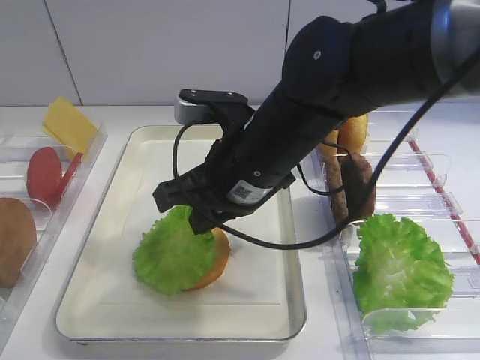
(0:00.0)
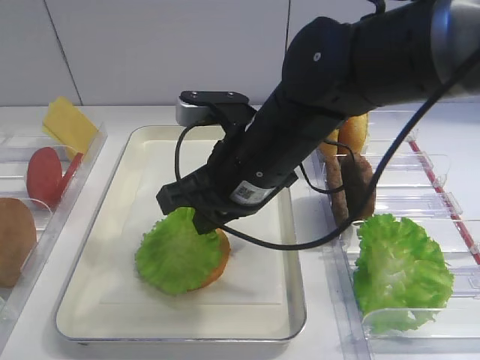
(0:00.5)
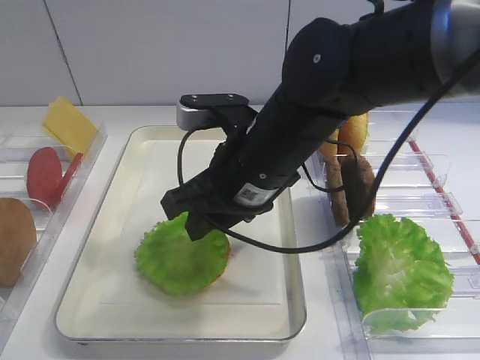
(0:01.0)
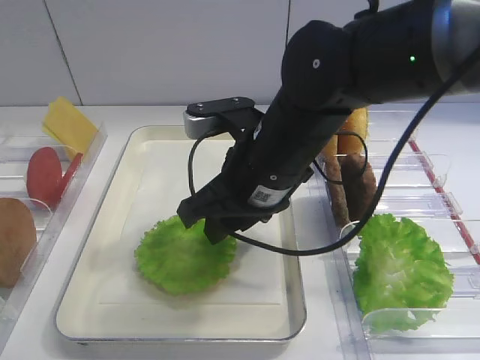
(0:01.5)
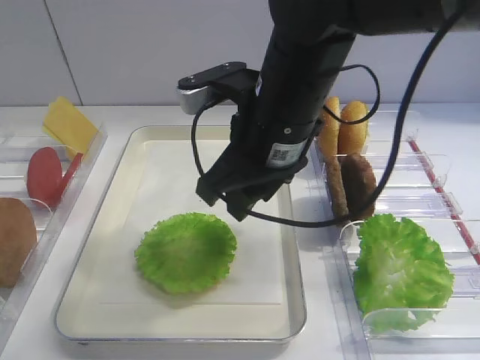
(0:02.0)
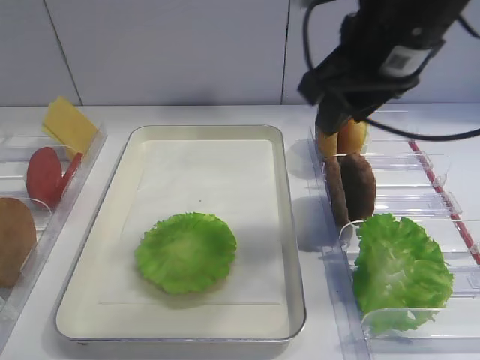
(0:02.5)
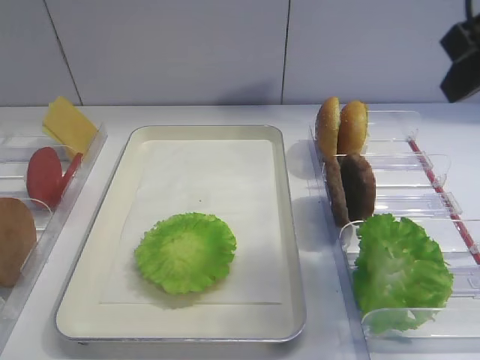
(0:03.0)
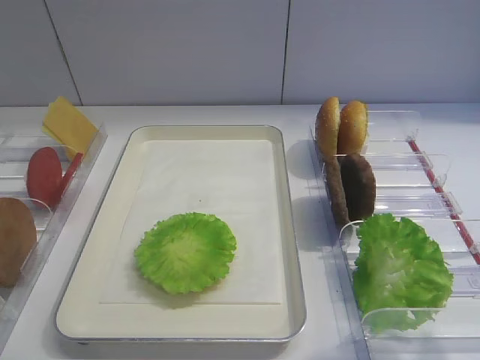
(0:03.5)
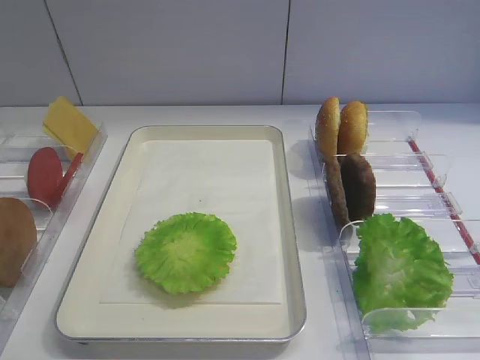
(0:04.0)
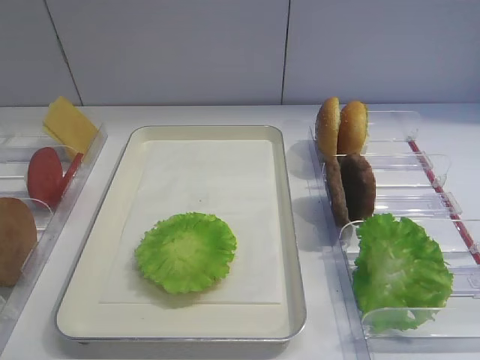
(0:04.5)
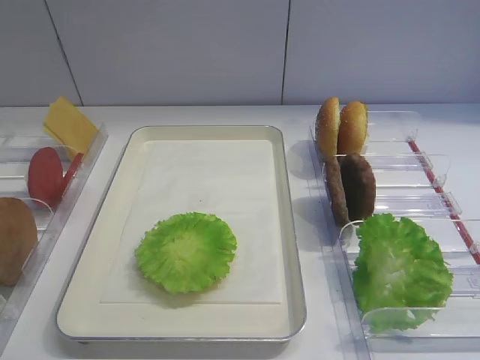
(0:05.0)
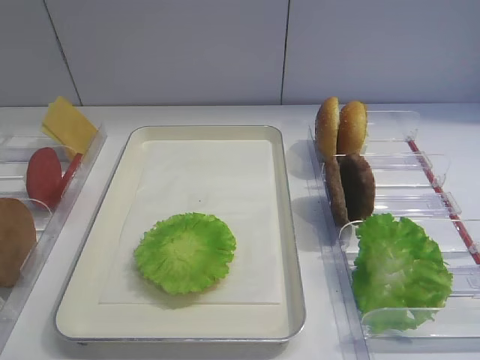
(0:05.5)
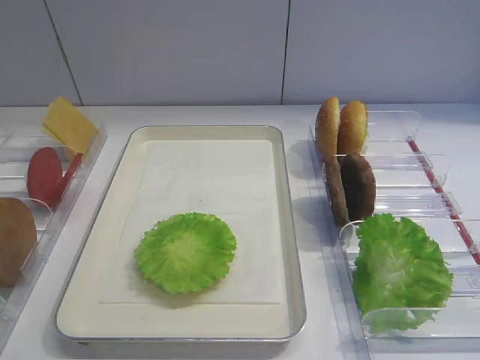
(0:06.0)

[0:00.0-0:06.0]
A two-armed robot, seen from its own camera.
0:00.0 to 0:02.0: The right gripper opens its fingers.
0:02.0 to 0:04.0: The right gripper is displaced to the right and backward by approximately 30 cm.

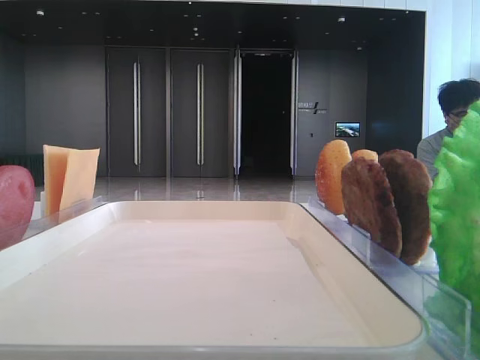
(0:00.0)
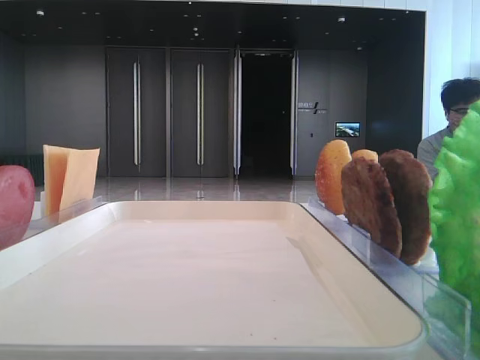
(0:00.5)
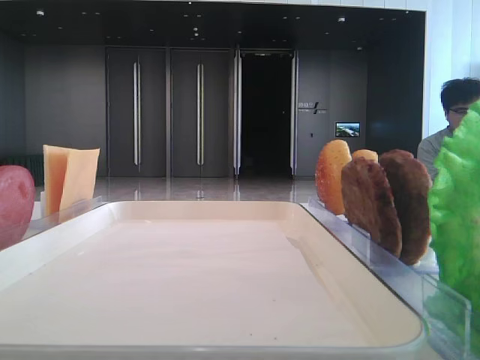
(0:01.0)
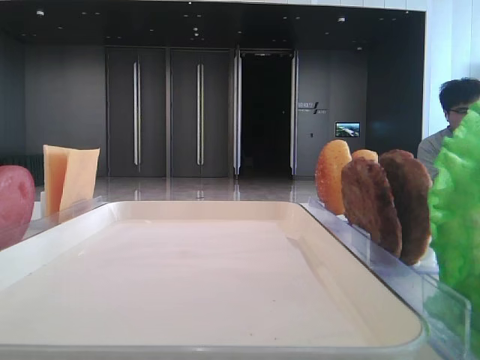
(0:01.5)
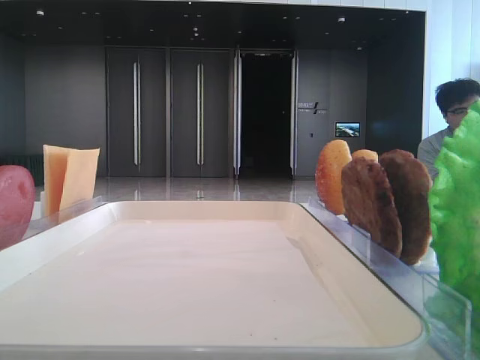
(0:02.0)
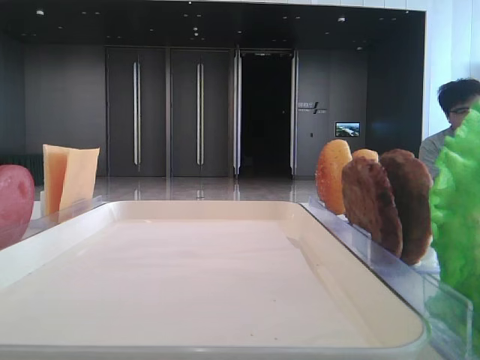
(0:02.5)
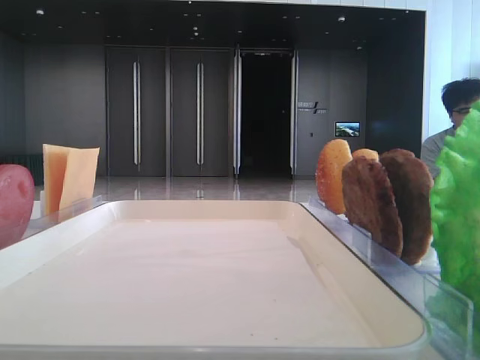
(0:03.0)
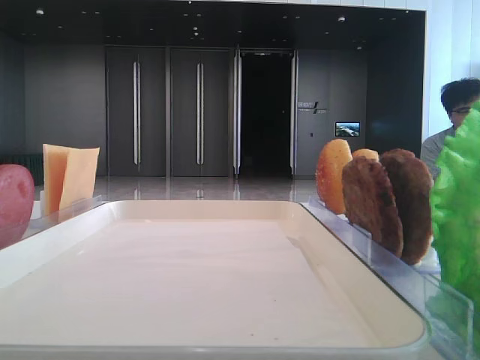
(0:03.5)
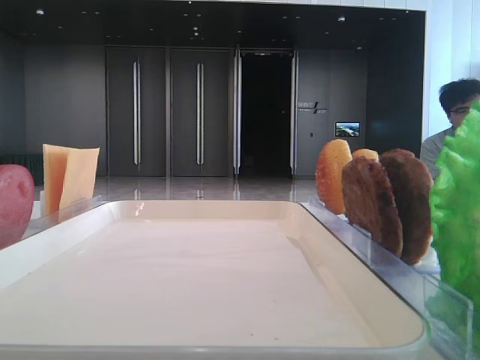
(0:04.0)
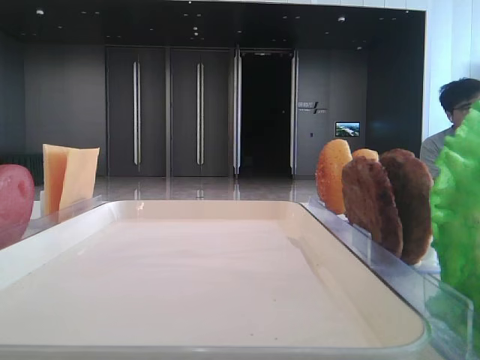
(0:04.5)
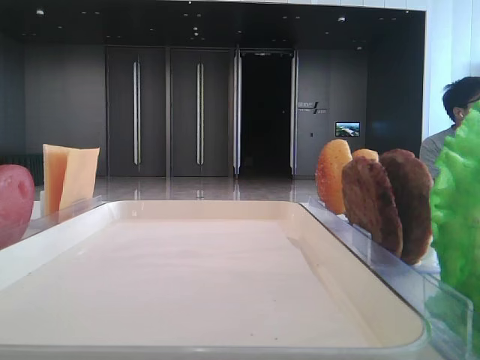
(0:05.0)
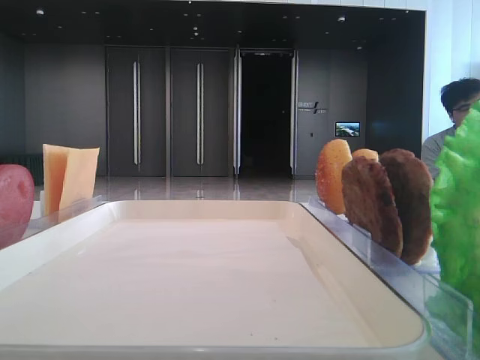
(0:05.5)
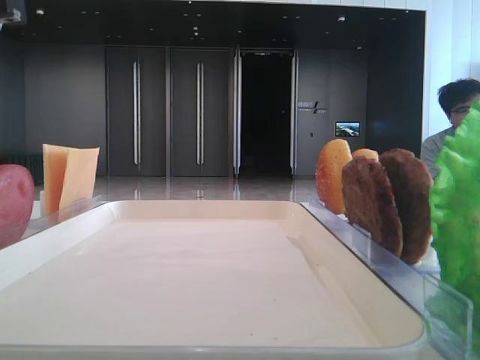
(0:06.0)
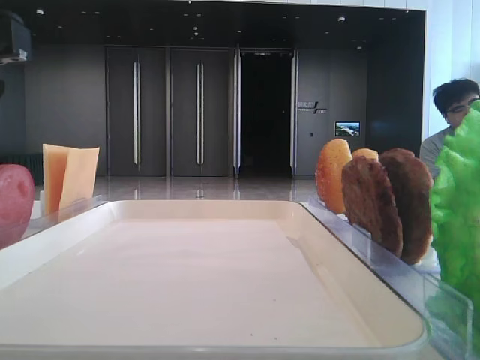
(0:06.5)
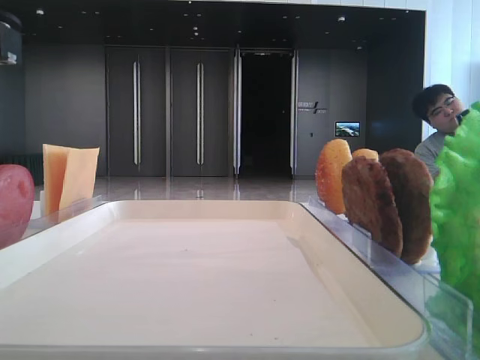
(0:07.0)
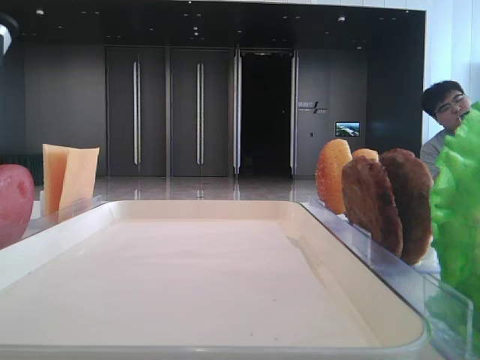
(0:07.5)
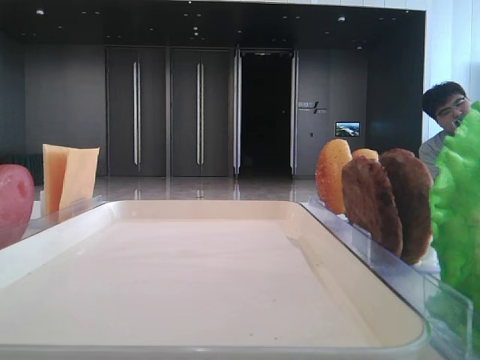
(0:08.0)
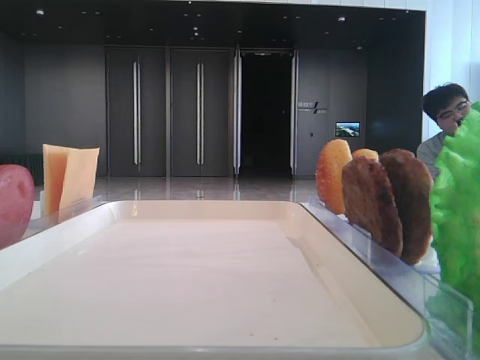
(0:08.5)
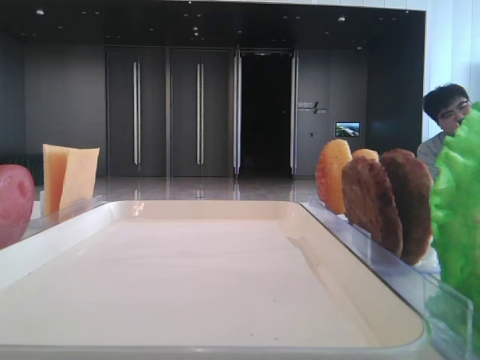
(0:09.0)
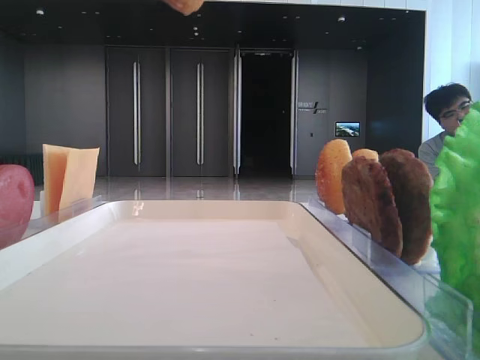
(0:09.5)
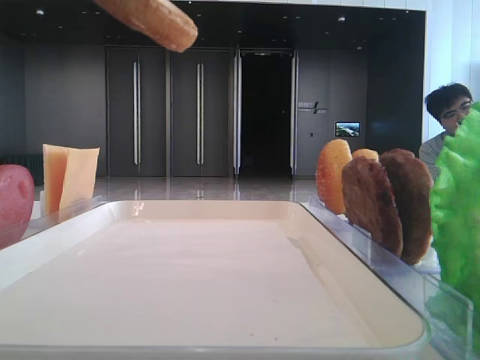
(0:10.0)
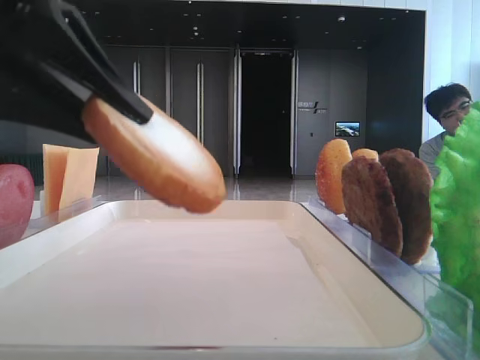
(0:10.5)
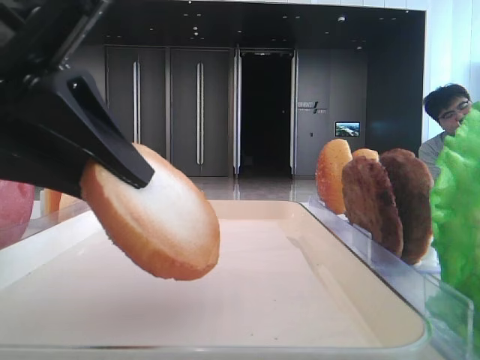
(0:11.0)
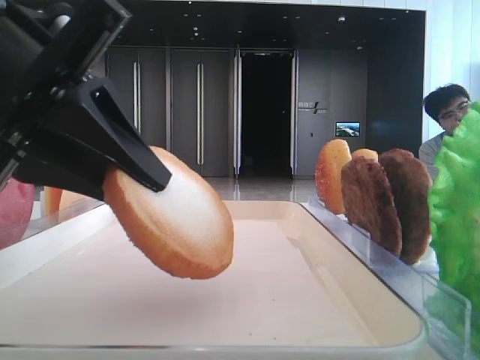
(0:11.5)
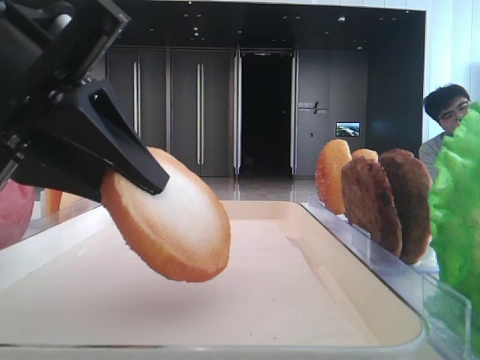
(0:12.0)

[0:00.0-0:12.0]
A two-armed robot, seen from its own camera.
0:10.0 to 0:12.0: The left gripper moves downward and forward, about 10 cm.

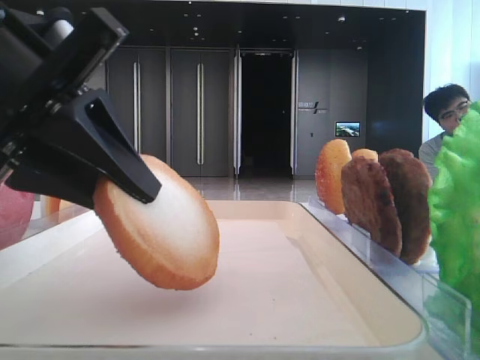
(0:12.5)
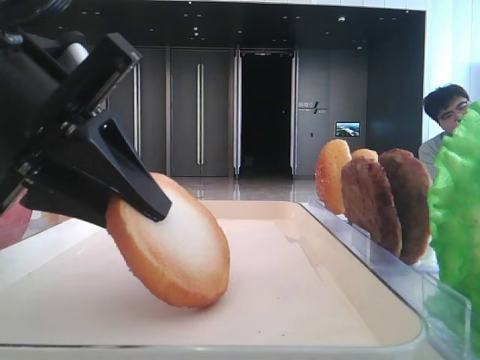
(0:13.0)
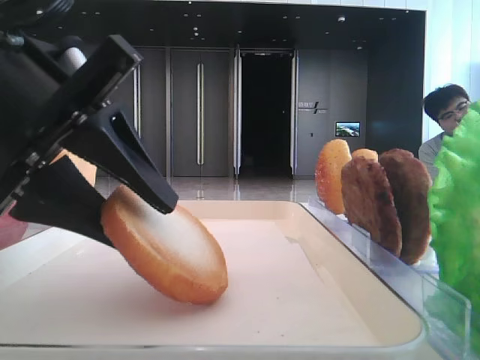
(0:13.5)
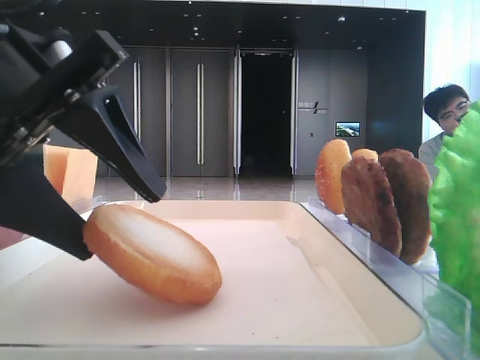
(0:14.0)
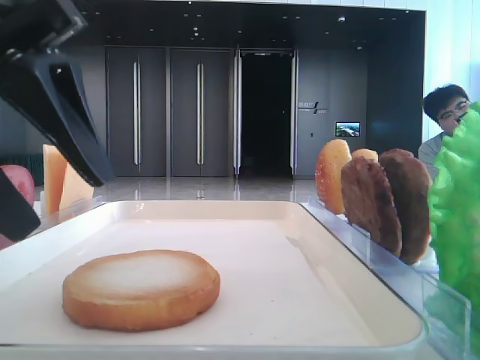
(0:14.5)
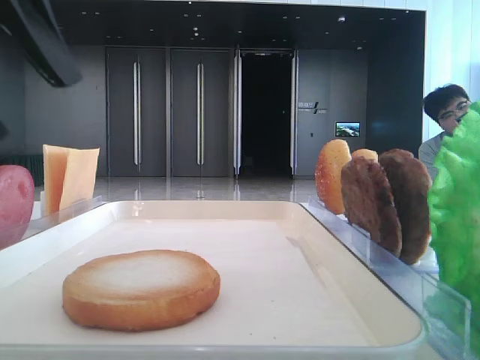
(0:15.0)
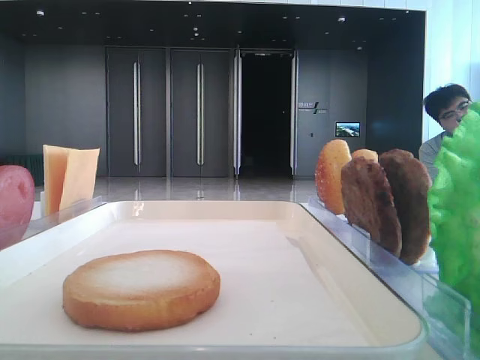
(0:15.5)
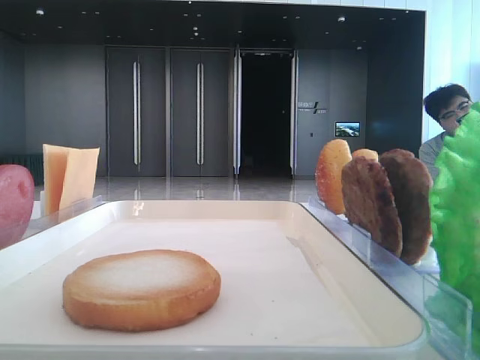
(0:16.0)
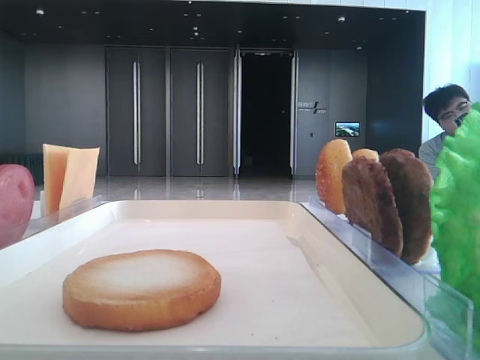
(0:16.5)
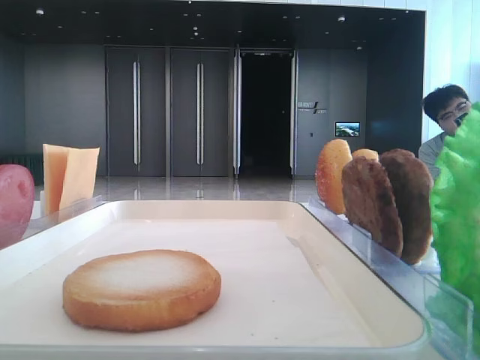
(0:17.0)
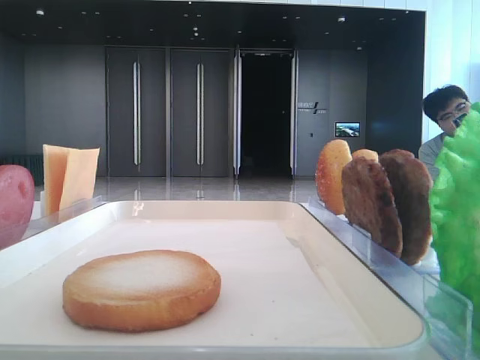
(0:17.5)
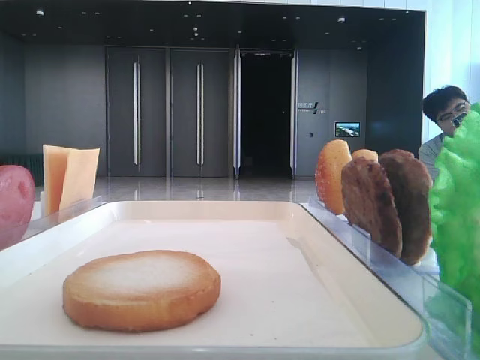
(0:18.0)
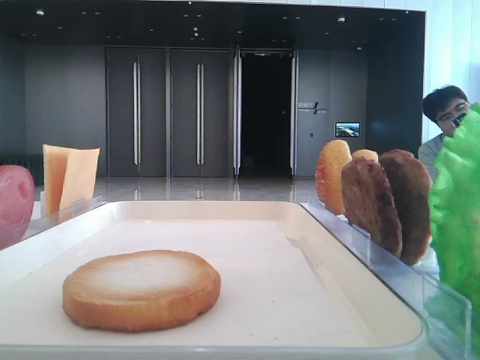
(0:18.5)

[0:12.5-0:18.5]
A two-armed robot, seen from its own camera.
0:12.5 to 0:14.5: The left gripper opens up.
0:14.5 to 0:16.5: The left gripper heads upward and to the left, covering approximately 20 cm.

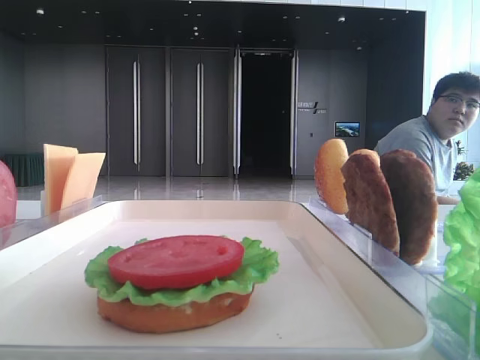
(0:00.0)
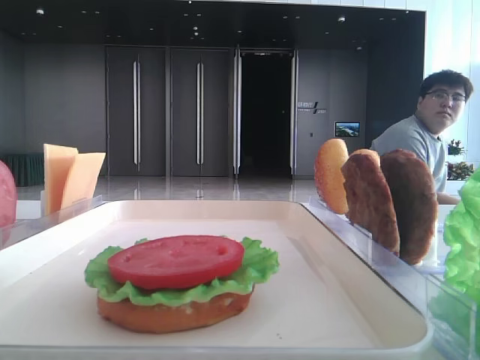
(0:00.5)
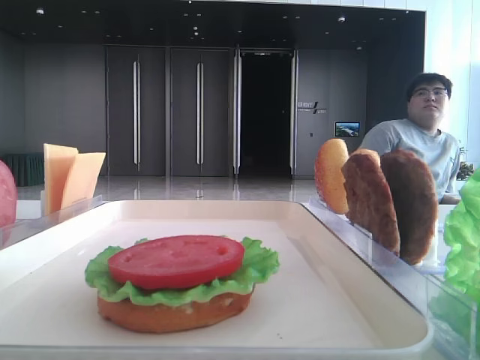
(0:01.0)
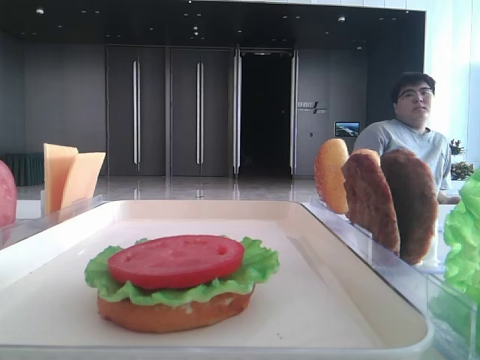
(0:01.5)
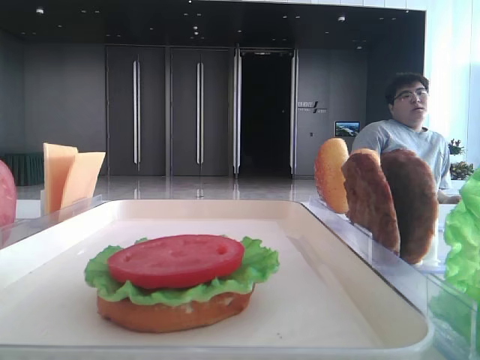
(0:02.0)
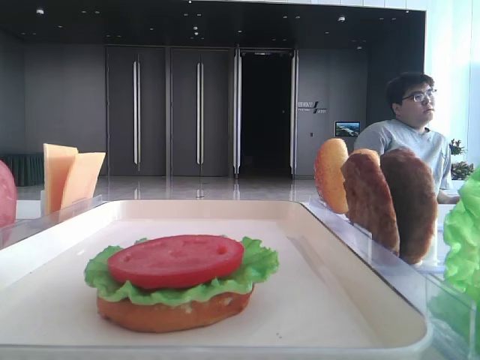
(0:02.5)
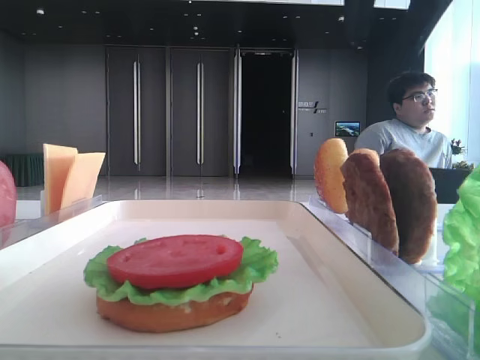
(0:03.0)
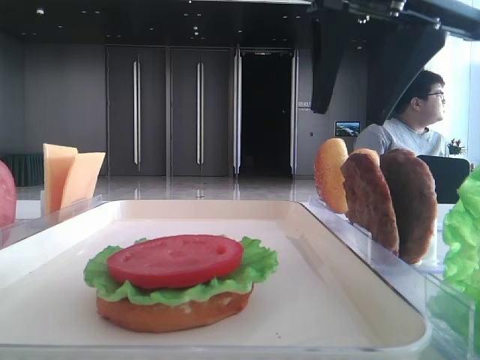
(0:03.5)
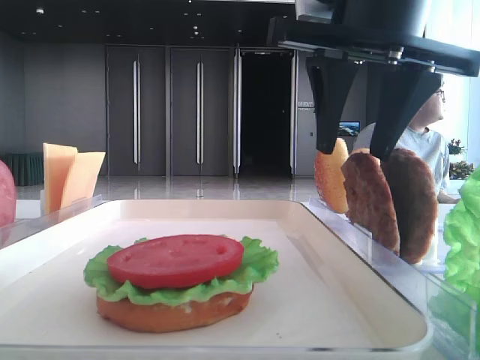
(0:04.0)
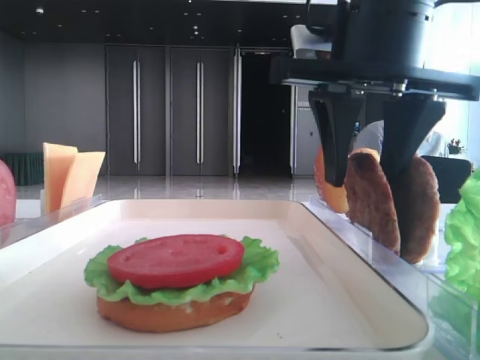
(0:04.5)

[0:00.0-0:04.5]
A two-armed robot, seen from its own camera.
0:02.0 to 0:04.5: The left gripper closes up, while the right gripper travels to the left, downward and forward by some 25 cm.
